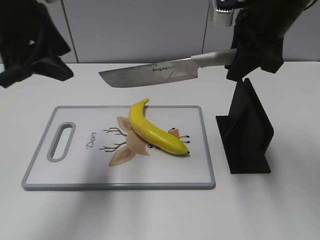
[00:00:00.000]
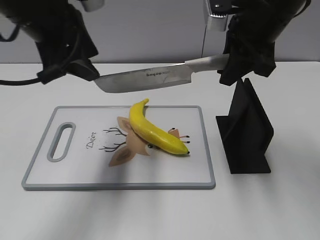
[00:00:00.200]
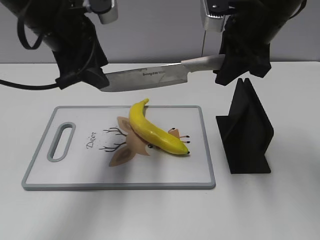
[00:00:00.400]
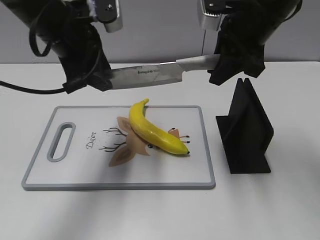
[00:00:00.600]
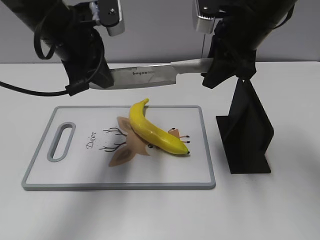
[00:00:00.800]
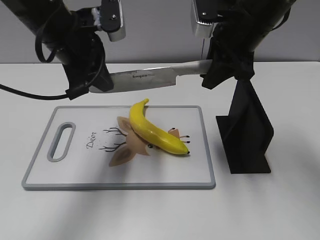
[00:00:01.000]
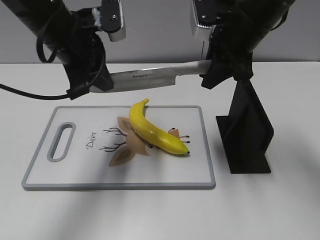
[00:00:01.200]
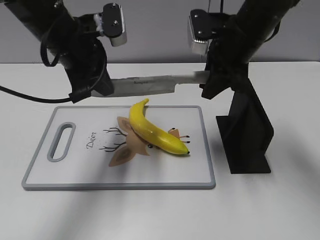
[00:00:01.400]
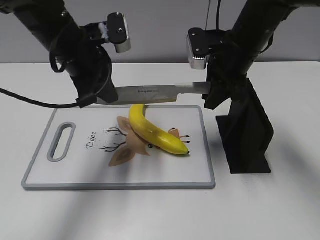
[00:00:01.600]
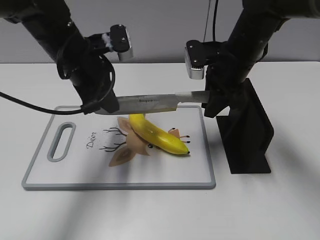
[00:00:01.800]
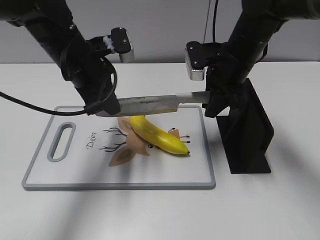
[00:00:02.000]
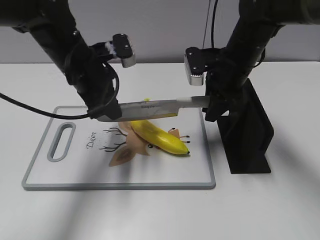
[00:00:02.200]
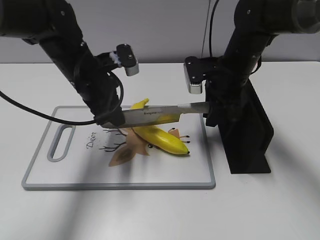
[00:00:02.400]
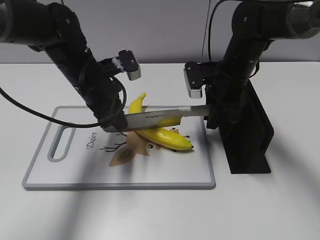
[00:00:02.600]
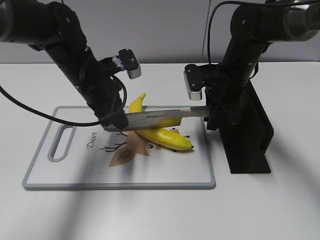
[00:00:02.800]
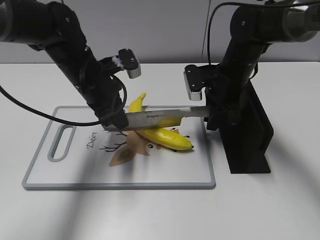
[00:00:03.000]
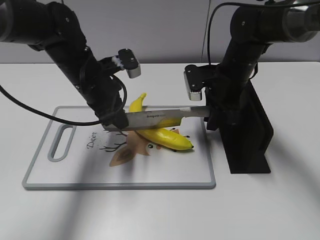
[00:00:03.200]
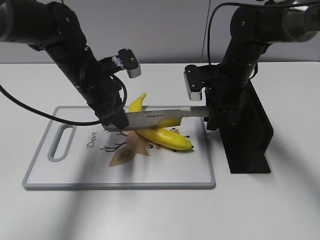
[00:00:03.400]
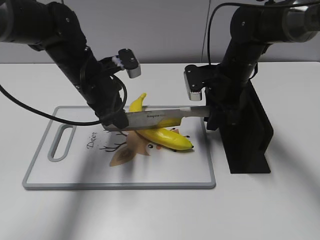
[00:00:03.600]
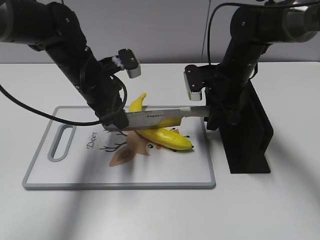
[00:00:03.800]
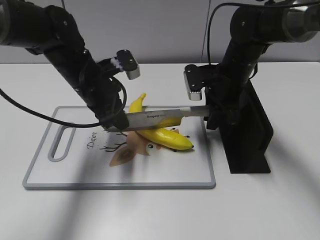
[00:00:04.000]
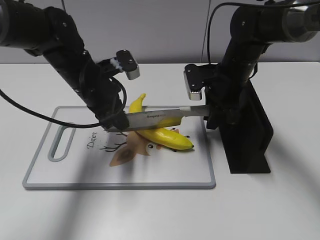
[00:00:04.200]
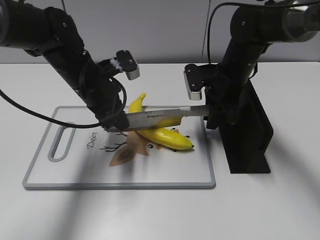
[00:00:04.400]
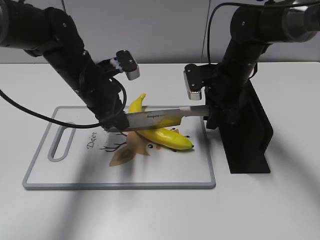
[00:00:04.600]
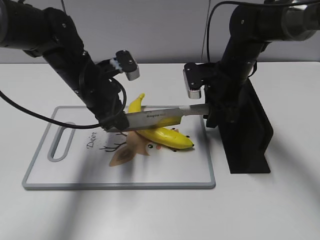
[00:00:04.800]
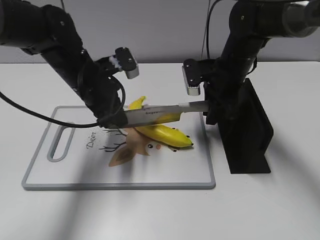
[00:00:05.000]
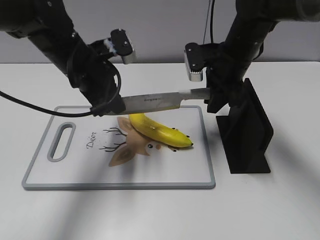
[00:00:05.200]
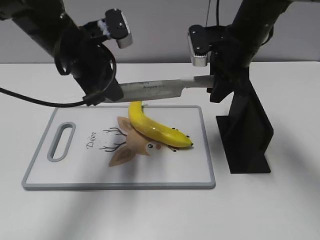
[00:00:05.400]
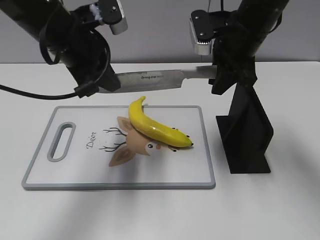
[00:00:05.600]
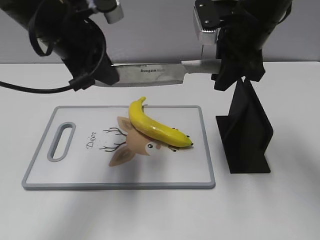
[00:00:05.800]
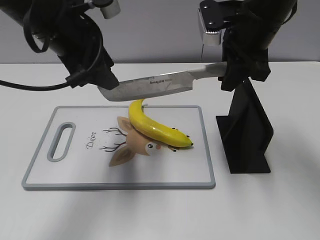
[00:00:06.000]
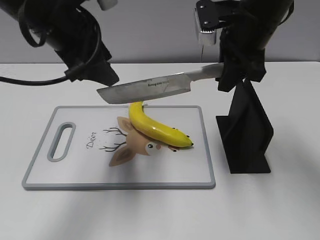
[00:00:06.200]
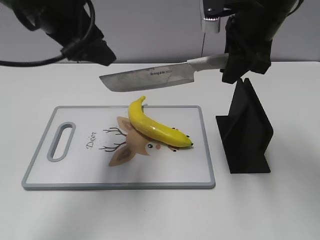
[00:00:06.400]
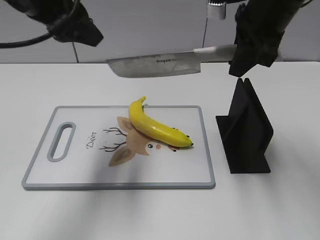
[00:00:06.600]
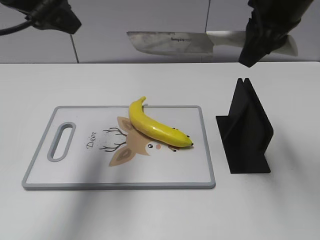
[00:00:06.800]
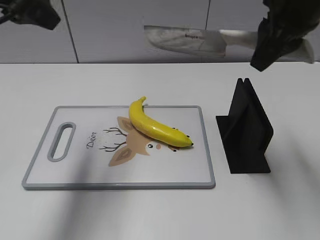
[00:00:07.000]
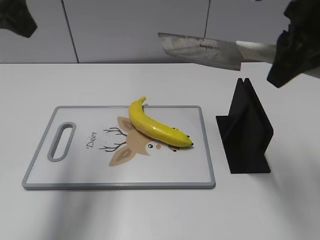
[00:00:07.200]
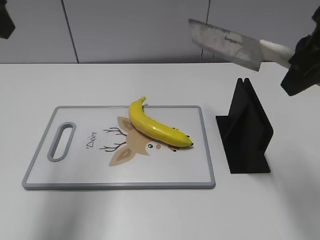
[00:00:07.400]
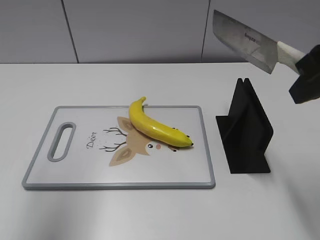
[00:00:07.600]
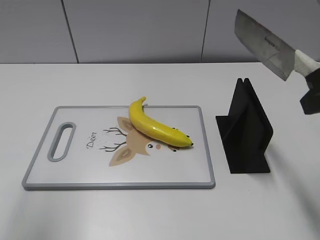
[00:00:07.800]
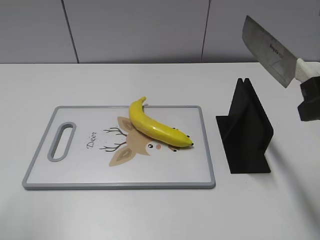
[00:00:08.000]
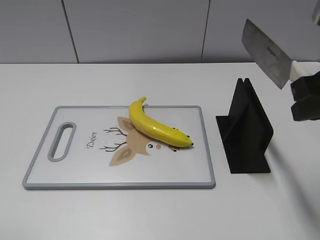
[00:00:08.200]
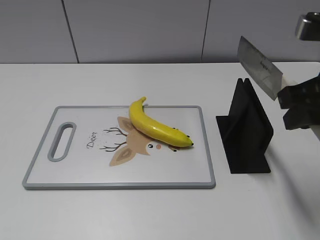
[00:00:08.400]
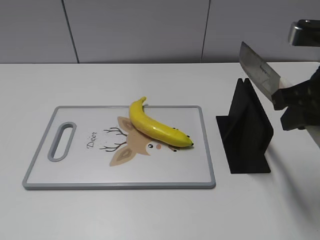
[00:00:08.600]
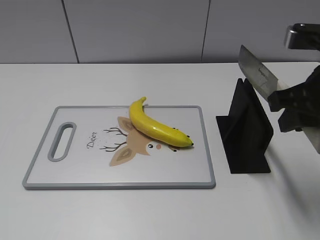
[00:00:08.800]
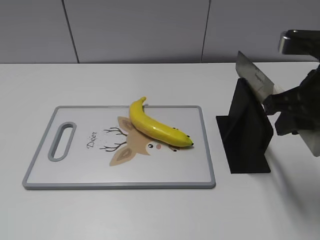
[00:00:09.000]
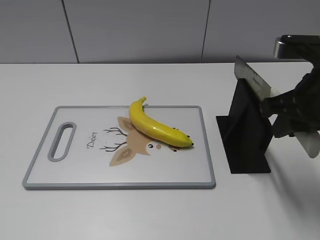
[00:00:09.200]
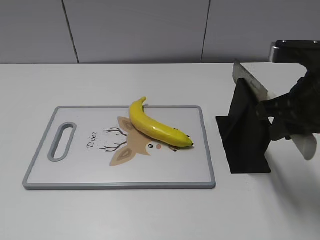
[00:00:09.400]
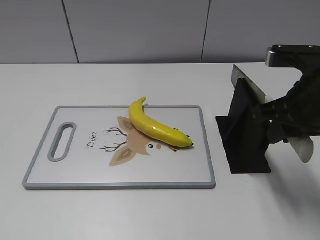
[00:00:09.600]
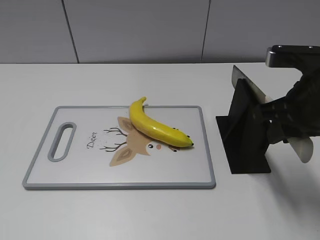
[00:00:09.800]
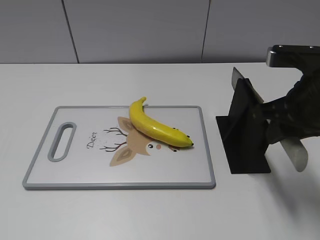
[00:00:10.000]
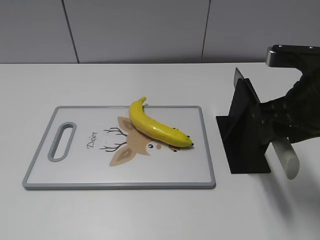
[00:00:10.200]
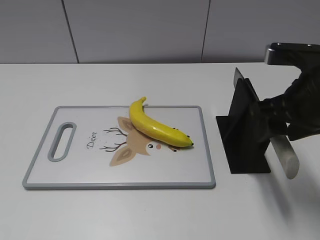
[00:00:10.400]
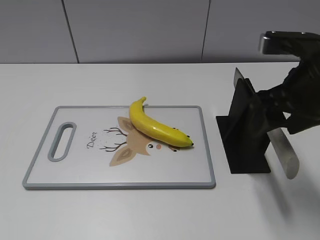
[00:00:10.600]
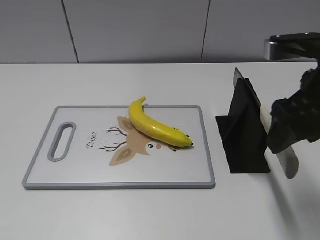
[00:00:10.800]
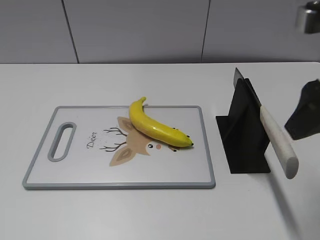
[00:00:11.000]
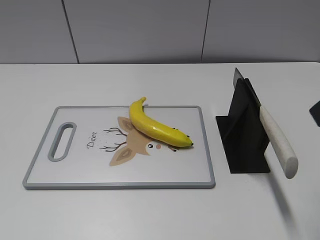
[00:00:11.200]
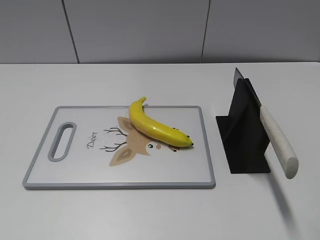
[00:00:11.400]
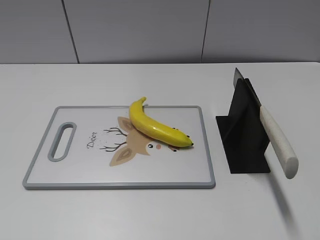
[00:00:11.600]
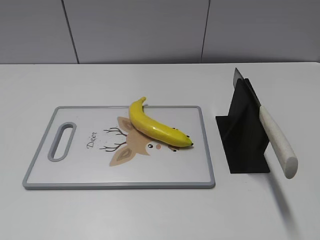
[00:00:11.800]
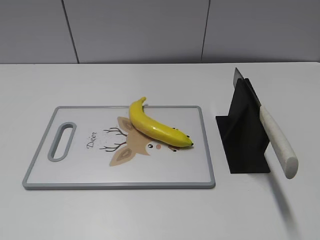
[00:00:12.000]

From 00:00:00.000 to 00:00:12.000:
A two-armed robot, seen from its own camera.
Task of the whole recording: cut plastic banana.
Step, from 00:00:00.000 to 00:00:03.000: Lift the knife with your right hand.
Step, from 00:00:03.200 to 00:00:05.000: Cut the banana with your right hand.
Step, from 00:00:05.200 to 00:00:09.000: Secure the blade with your left hand.
From 00:00:00.000 to 00:00:01.600: The left gripper heads downward, forward and to the right, covering roughly 15 cm, and closes its fingers; the right gripper shifts roughly 10 cm downward.
From 00:00:01.600 to 00:00:03.000: The grippers both shift downward by about 5 cm.
From 00:00:03.000 to 00:00:04.400: The two grippers keep their place.
From 00:00:04.400 to 00:00:06.000: Both grippers move upward, about 15 cm. The left gripper opens.
From 00:00:06.000 to 00:00:07.600: The right gripper shifts approximately 20 cm backward, upward and to the right. The left gripper is displaced upward, to the left and backward by approximately 20 cm.
From 00:00:07.600 to 00:00:09.000: The right gripper goes approximately 10 cm downward. Meanwhile the left gripper moves backward, downward and to the left, roughly 25 cm.
From 00:00:09.000 to 00:00:10.400: The right gripper opens its fingers.
From 00:00:10.400 to 00:00:12.000: The right gripper moves backward, roughly 20 cm.
